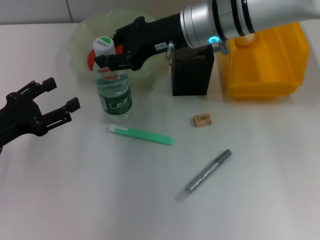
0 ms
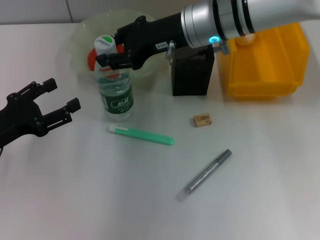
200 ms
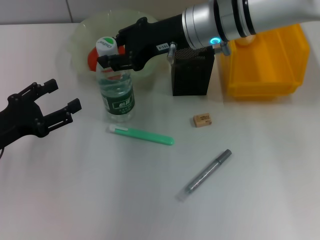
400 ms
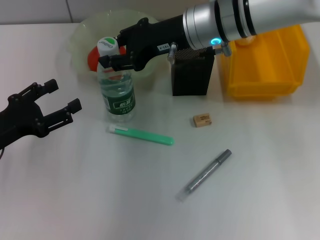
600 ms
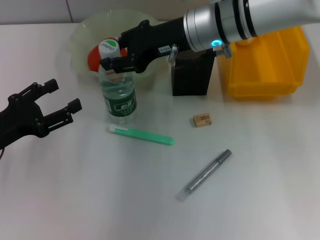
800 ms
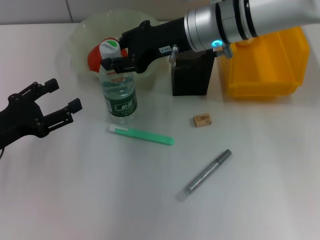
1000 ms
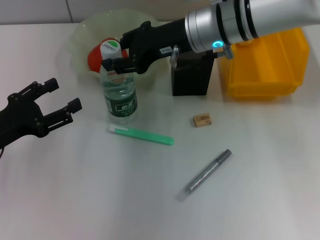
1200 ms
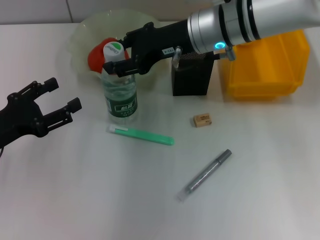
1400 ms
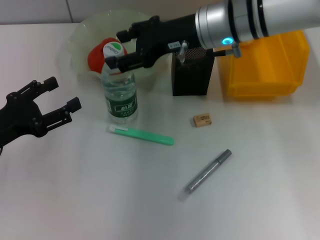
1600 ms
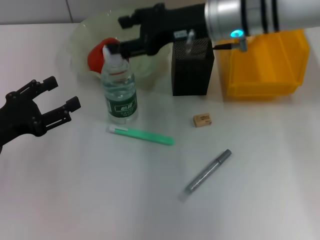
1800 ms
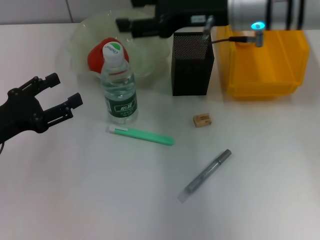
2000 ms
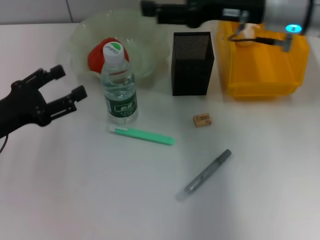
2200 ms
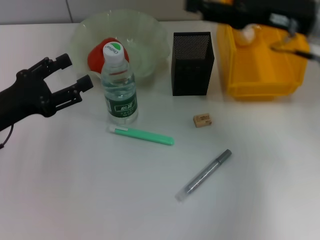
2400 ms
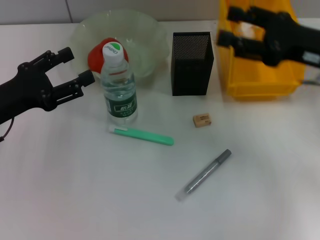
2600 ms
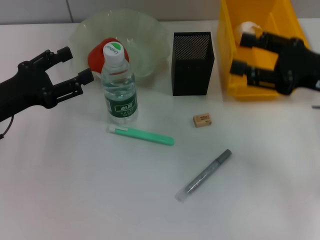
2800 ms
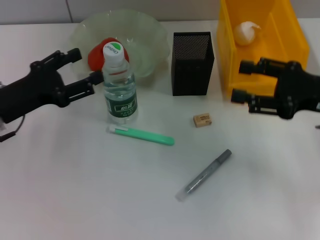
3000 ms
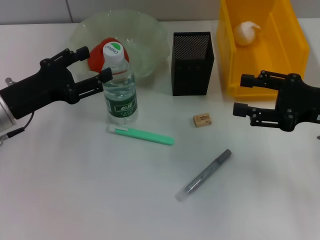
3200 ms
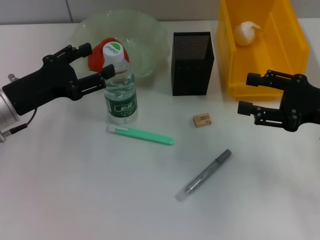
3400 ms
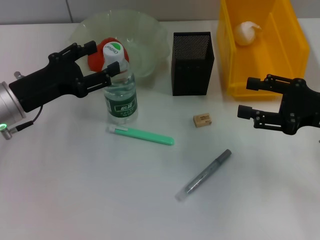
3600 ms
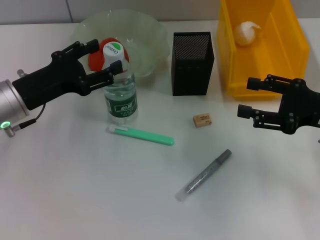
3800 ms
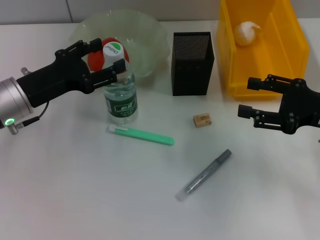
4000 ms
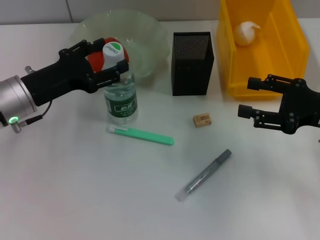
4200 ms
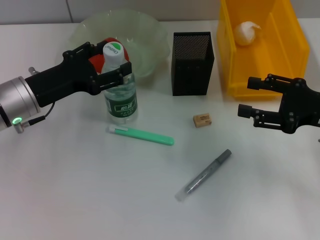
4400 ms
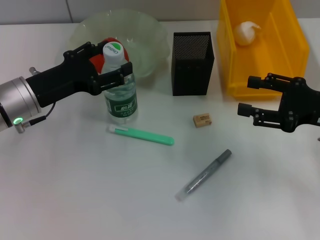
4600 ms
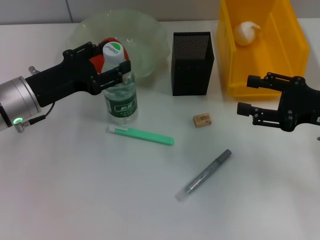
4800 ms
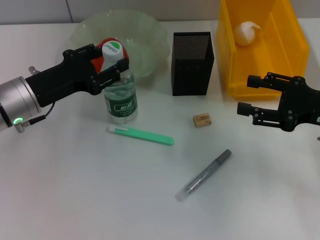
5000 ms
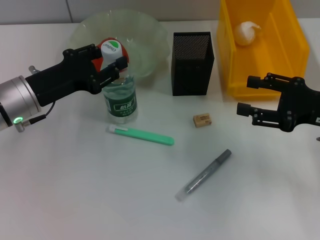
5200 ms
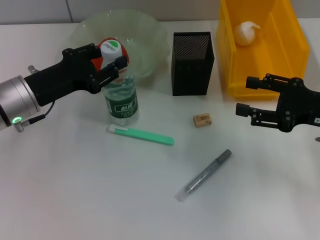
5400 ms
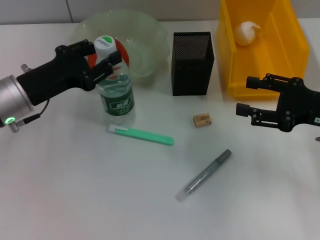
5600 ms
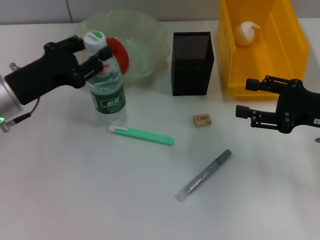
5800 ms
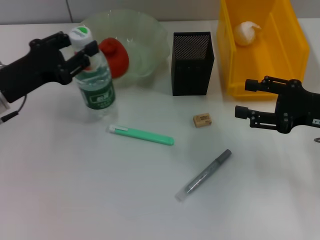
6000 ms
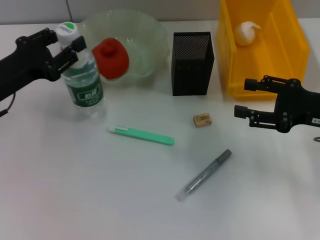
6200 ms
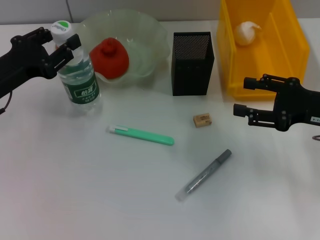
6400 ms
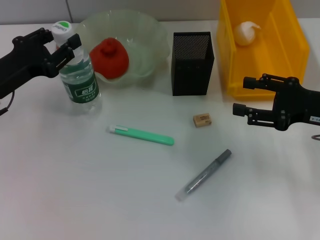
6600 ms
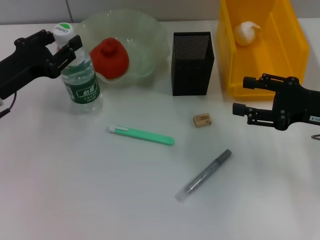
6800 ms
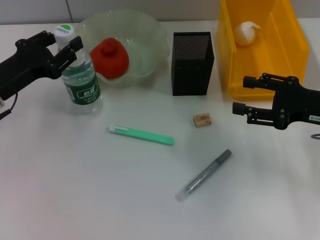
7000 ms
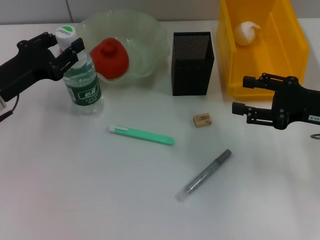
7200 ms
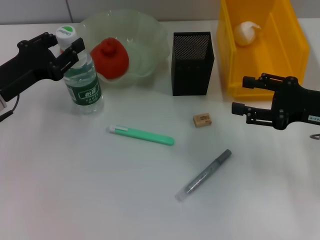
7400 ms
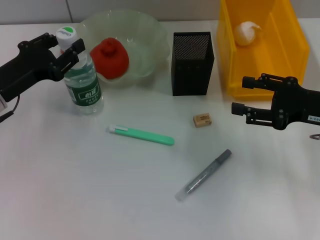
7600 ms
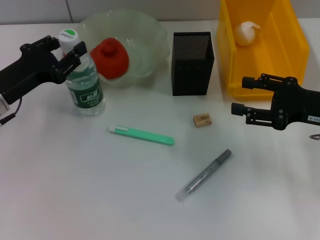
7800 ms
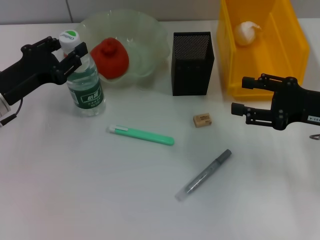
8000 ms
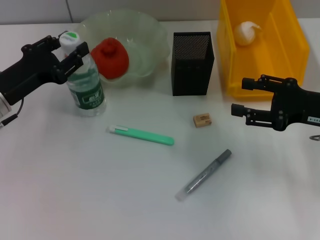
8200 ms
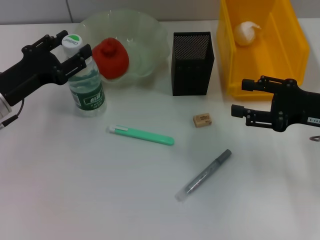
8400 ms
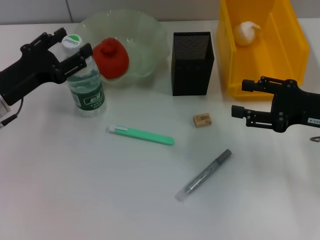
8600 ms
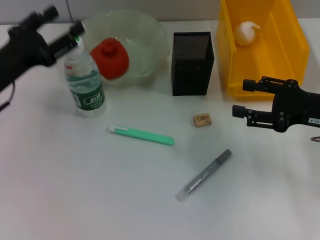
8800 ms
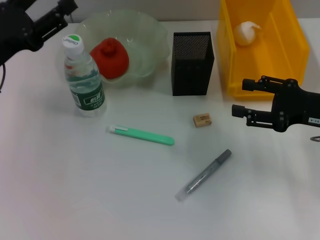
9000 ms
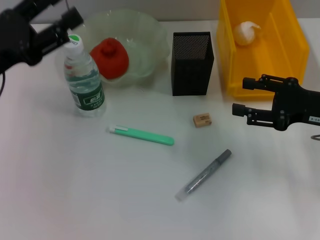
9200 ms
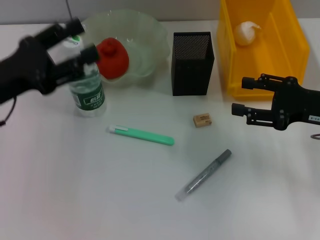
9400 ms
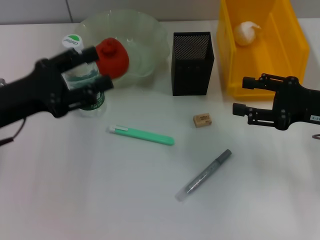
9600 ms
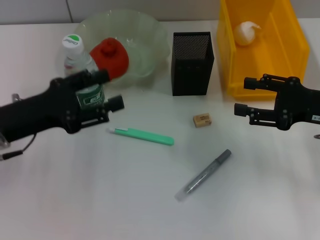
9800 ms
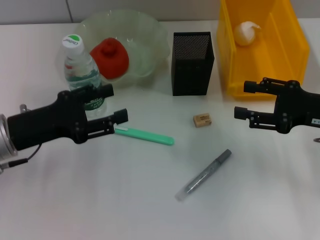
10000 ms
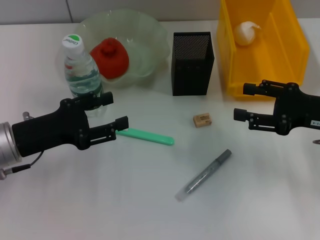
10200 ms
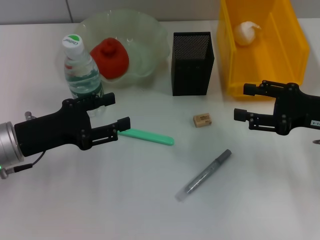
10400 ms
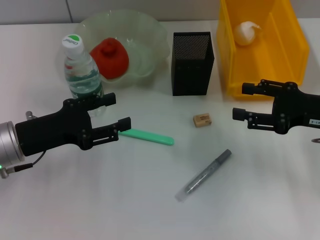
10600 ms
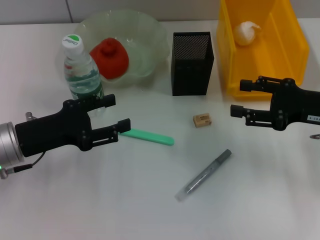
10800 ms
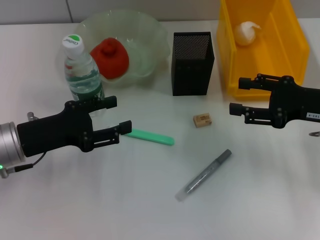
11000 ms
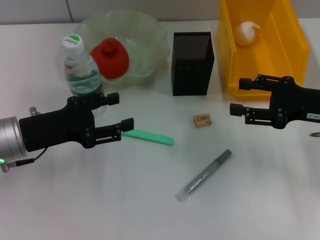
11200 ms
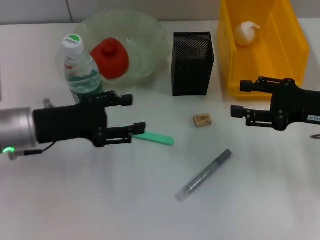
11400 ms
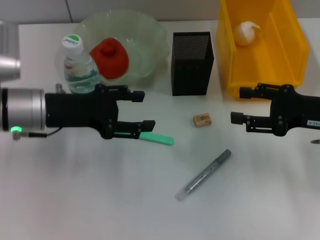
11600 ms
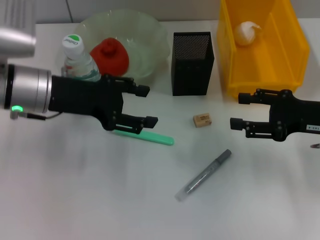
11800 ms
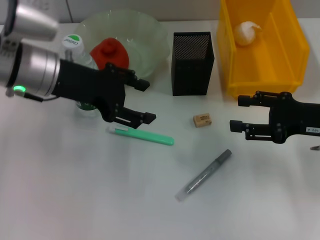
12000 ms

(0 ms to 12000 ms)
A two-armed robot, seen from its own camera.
Step, 2000 ms - 5200 ms: Grab the water bottle with the left hand.
Step, 5400 ms - 8800 ms: Place the water bottle on the table with the left hand.
0 ms - 1600 ms: The grippers move only a little.
1600 ms - 3000 ms: The right gripper goes roughly 20 cm to the right and backward. Meanwhile the left gripper changes place by about 5 cm.
3000 ms - 4400 ms: The left gripper changes place by approximately 5 cm.
4400 ms - 6000 ms: The left gripper closes.
6000 ms - 7600 ms: The grippers make only small movements.
7600 ms - 9000 ms: The left gripper changes place by some 5 cm, and opens its fingers.
9000 ms - 10400 ms: The left gripper travels downward by roughly 5 cm.
10400 ms - 12000 ms: The left gripper shifts approximately 15 cm upward, forward and to the right.

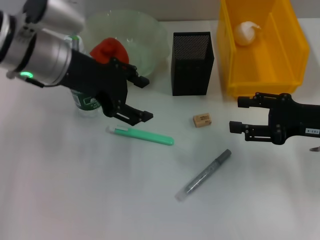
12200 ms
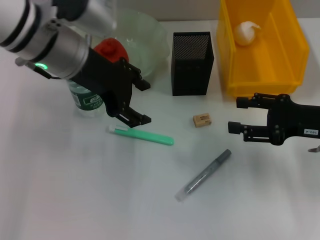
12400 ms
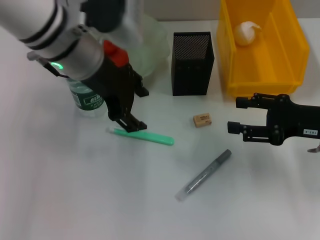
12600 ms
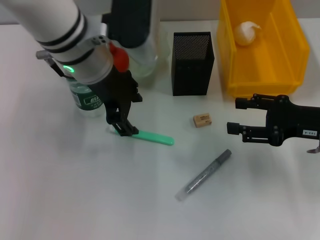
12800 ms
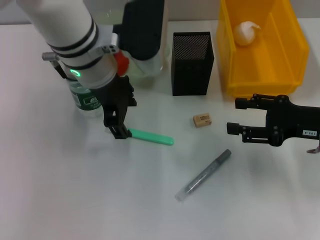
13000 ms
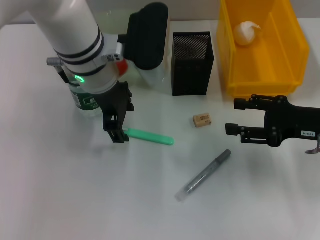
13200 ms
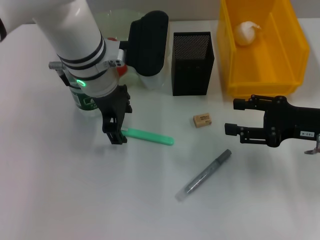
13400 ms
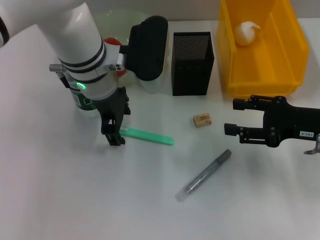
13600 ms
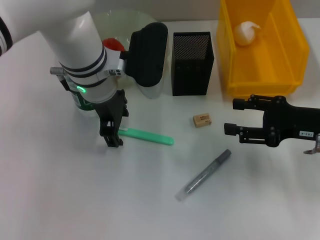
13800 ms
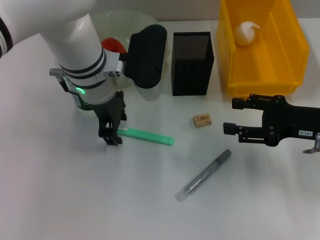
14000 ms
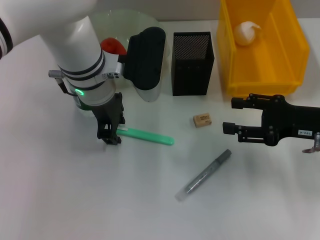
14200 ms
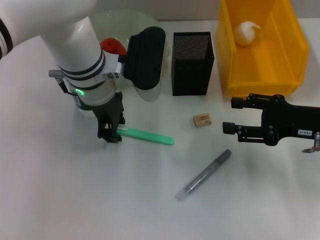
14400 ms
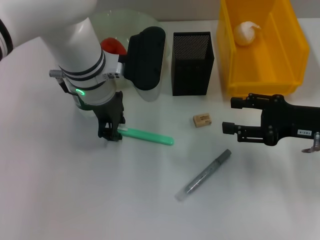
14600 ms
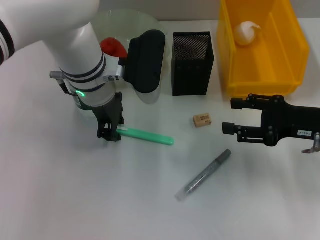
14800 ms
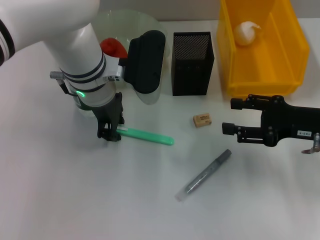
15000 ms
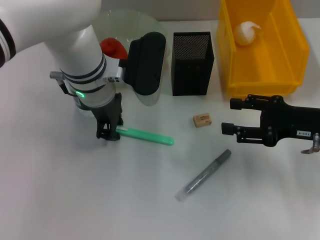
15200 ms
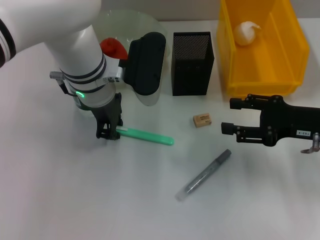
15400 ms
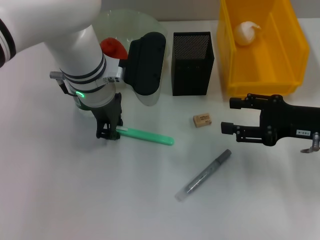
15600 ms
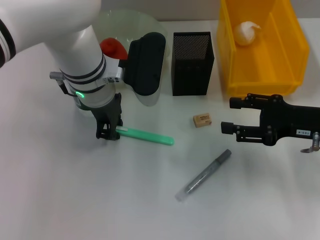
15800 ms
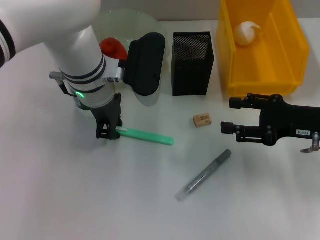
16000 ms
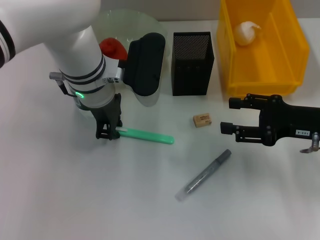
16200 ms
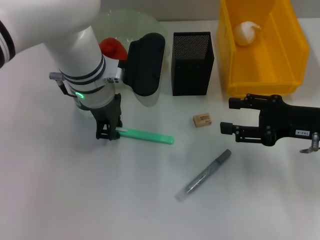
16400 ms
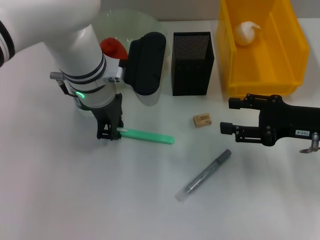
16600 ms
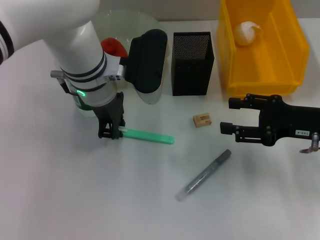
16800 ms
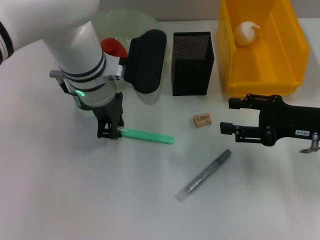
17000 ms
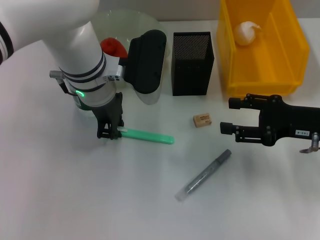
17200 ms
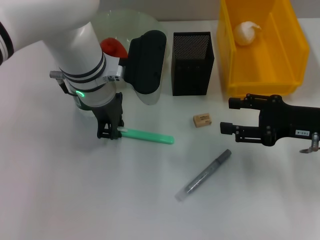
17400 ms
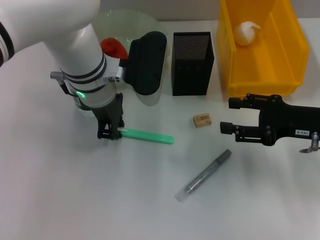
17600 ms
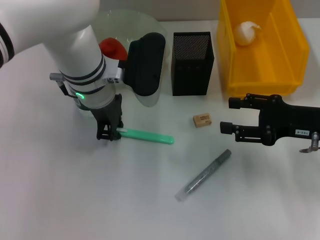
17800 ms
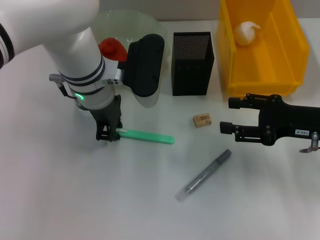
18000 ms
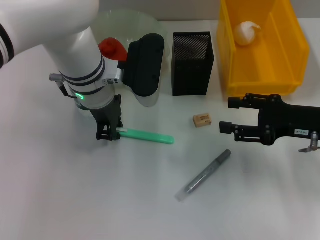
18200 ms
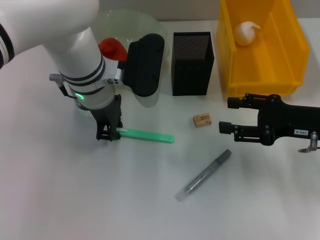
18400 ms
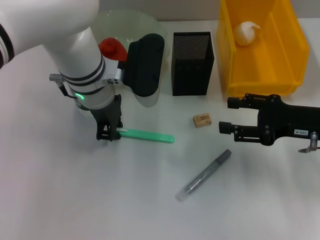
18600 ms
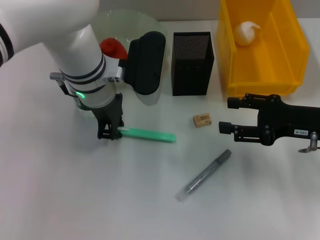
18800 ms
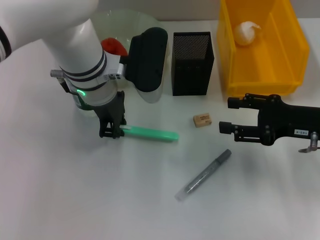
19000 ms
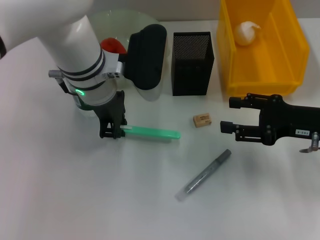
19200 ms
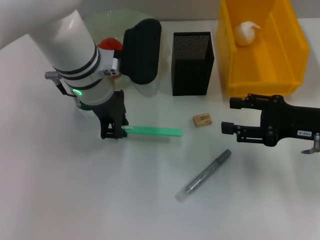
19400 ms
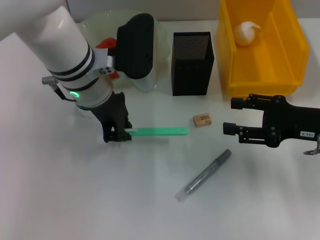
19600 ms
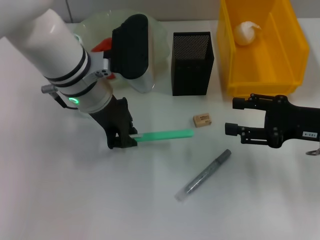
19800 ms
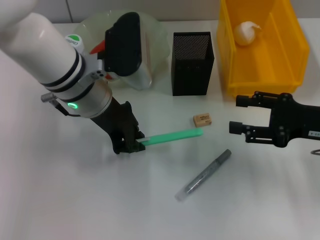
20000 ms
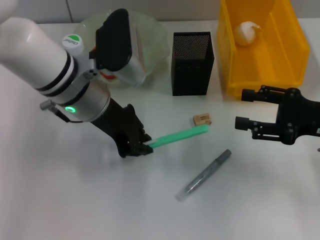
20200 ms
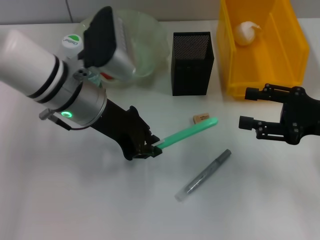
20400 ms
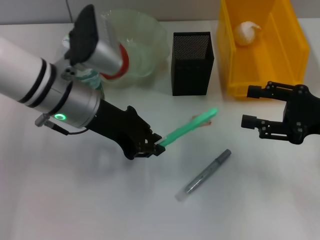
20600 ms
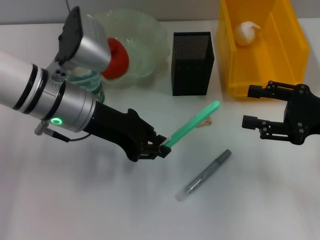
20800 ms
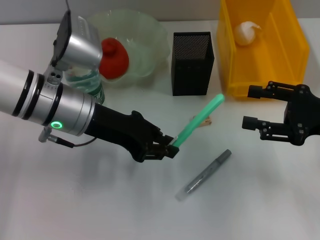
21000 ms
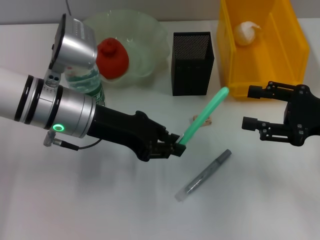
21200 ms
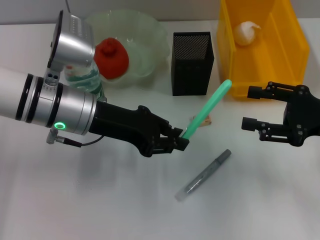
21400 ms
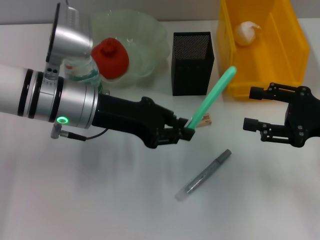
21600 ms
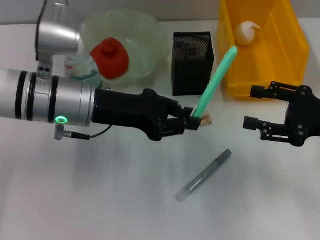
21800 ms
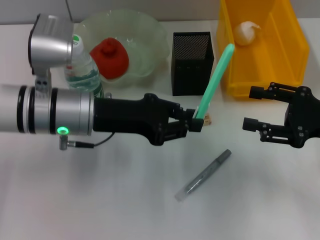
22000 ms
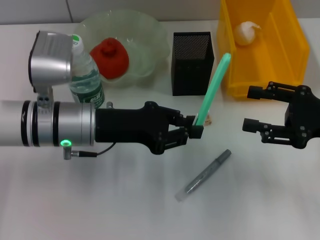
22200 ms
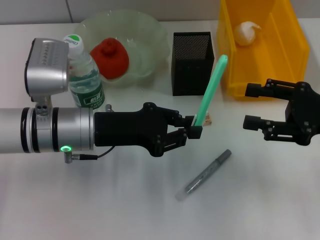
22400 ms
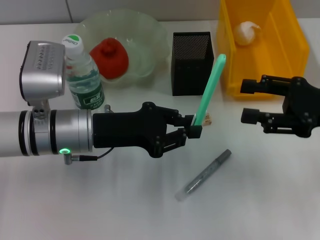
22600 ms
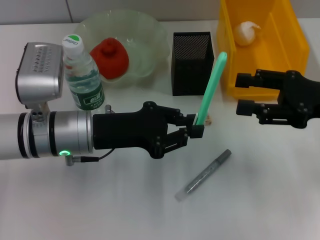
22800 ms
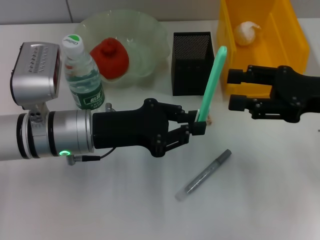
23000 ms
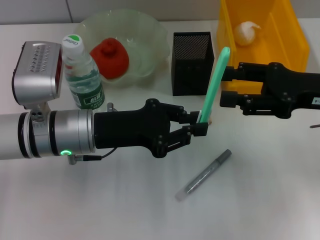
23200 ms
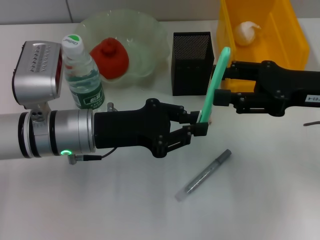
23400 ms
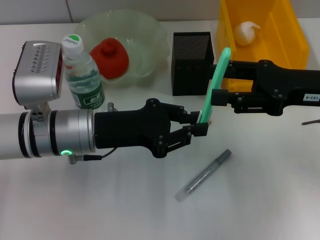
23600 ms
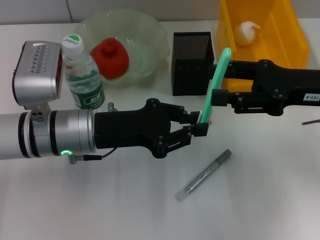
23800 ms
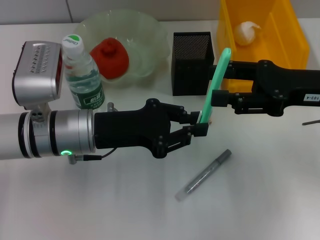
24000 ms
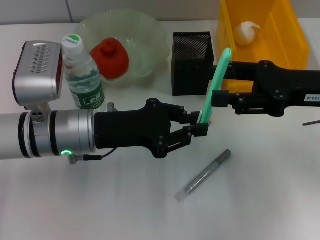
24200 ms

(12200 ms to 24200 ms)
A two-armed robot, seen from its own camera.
Step, 12200 ms - 18800 ms: Grab the blue utility knife with the left hand.
12200 ms - 13800 ms: The left gripper goes some 10 cm to the right.
13800 ms - 15200 ms: The left gripper closes up.
15200 ms - 18200 ms: Both grippers stay put.
18200 ms - 19800 ms: The grippers move only a little.
19800 ms - 21200 ms: The left gripper changes place by about 5 cm.
22600 ms - 24200 ms: There are only small adjustments of the grippers.
